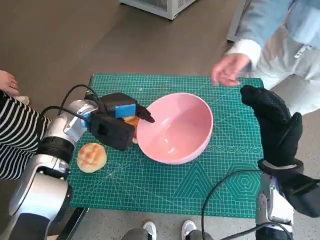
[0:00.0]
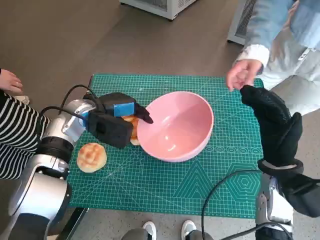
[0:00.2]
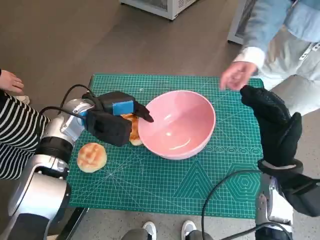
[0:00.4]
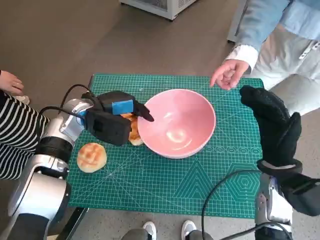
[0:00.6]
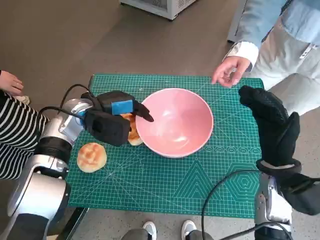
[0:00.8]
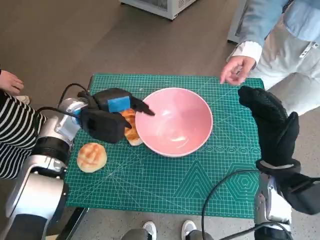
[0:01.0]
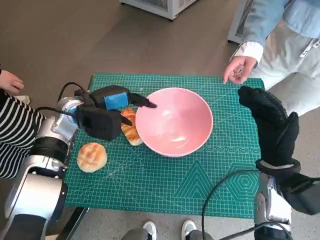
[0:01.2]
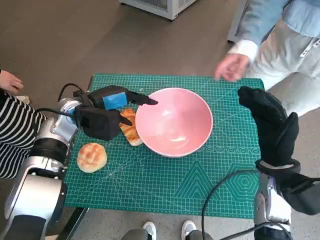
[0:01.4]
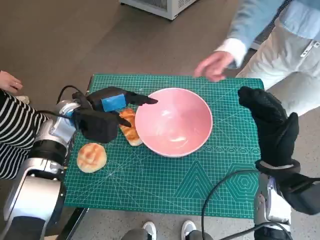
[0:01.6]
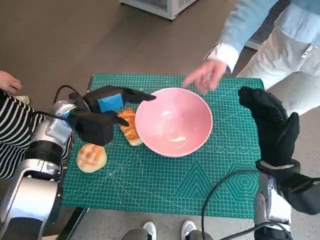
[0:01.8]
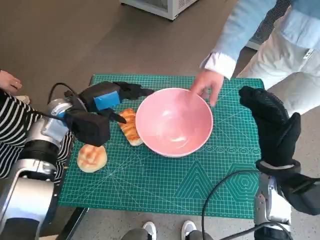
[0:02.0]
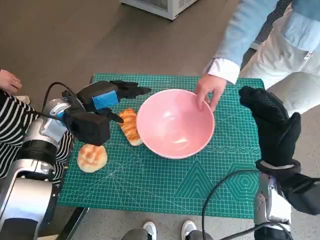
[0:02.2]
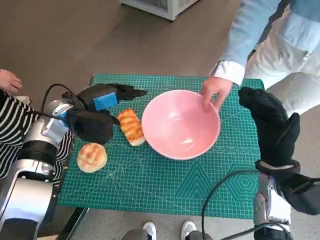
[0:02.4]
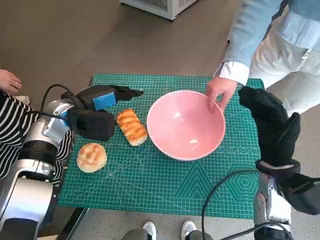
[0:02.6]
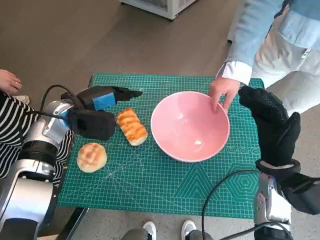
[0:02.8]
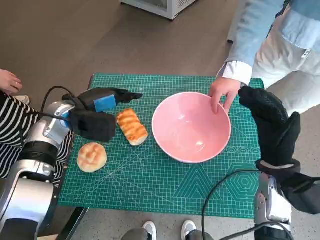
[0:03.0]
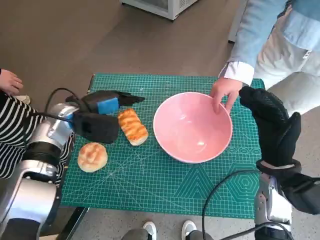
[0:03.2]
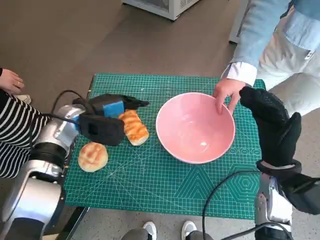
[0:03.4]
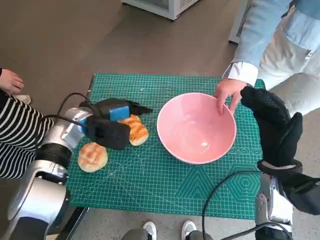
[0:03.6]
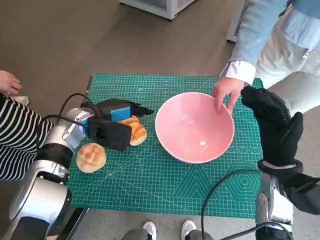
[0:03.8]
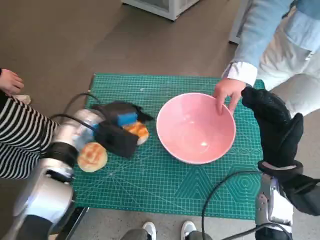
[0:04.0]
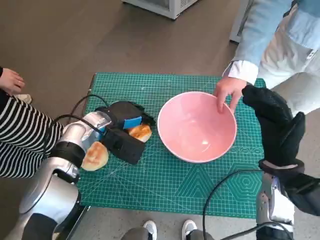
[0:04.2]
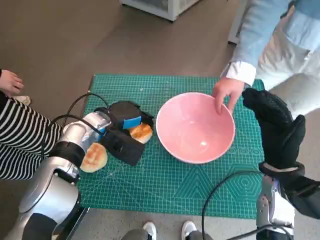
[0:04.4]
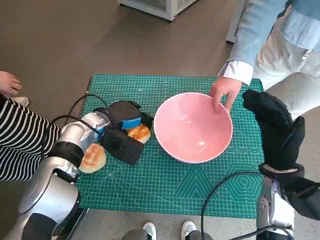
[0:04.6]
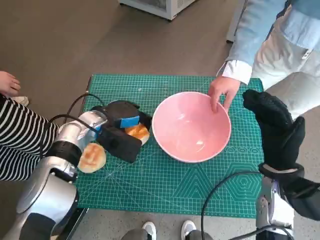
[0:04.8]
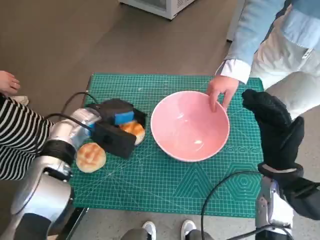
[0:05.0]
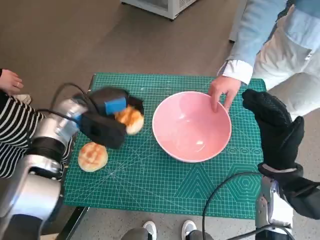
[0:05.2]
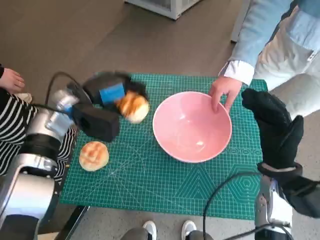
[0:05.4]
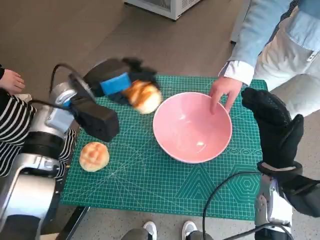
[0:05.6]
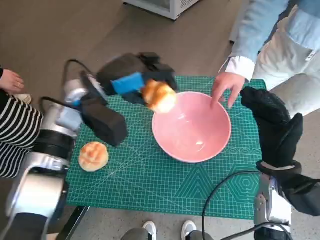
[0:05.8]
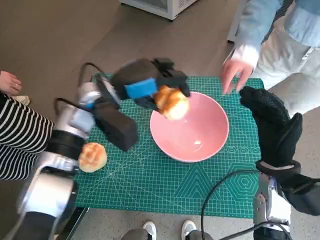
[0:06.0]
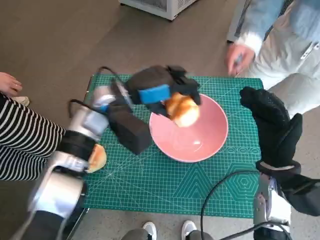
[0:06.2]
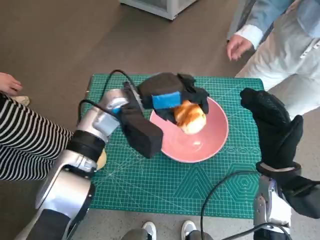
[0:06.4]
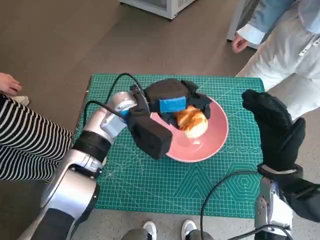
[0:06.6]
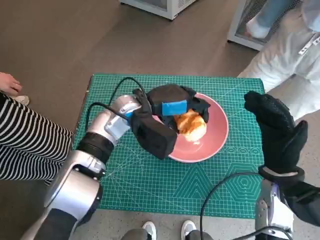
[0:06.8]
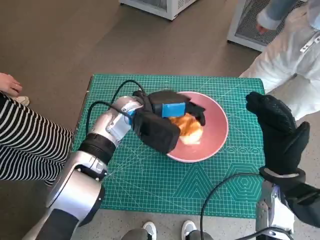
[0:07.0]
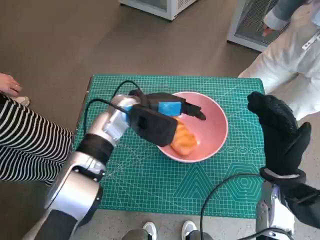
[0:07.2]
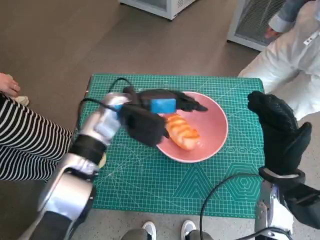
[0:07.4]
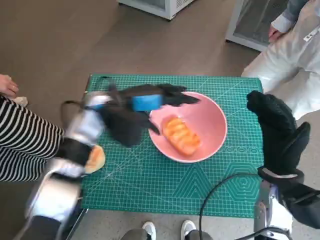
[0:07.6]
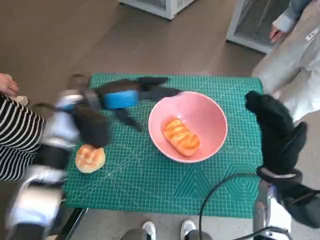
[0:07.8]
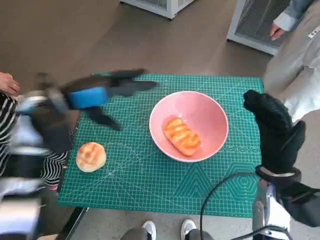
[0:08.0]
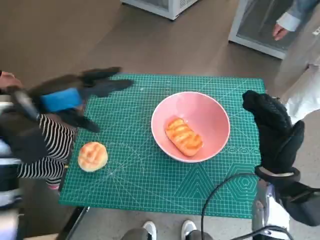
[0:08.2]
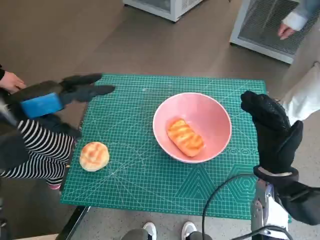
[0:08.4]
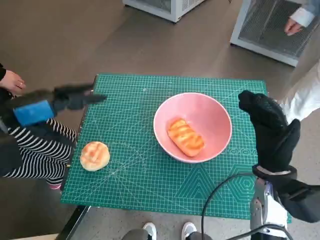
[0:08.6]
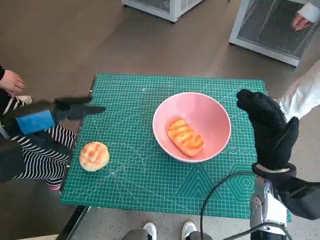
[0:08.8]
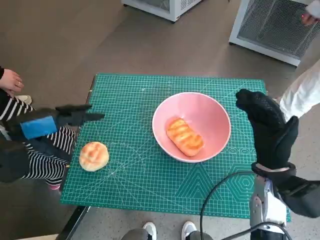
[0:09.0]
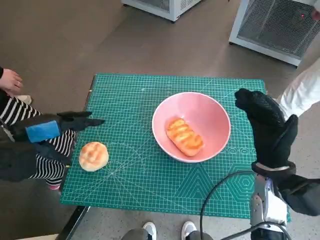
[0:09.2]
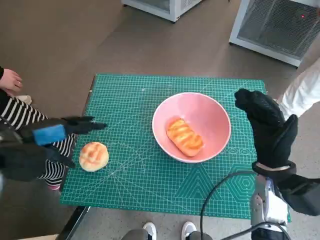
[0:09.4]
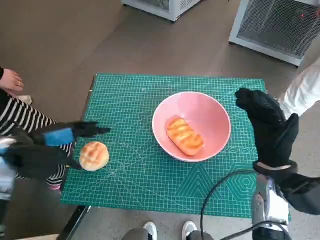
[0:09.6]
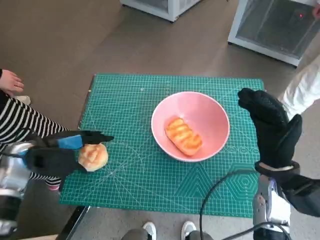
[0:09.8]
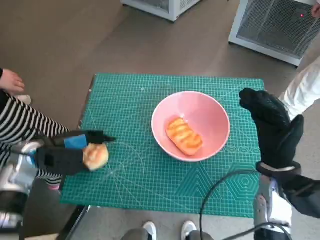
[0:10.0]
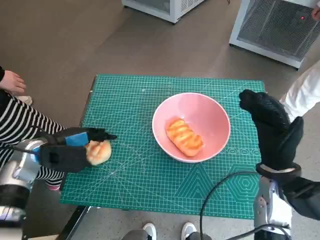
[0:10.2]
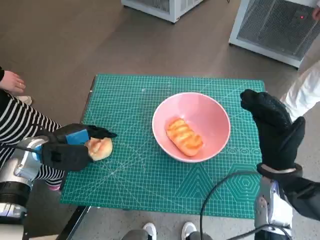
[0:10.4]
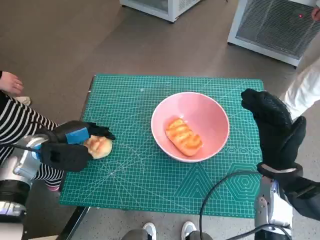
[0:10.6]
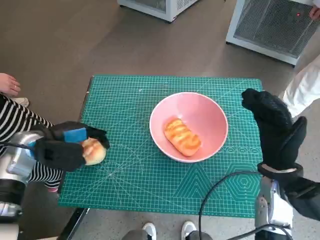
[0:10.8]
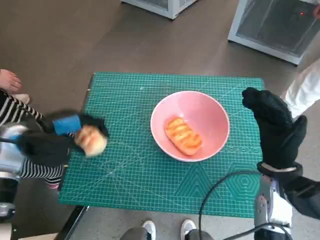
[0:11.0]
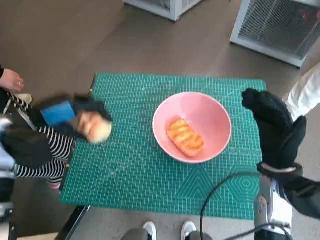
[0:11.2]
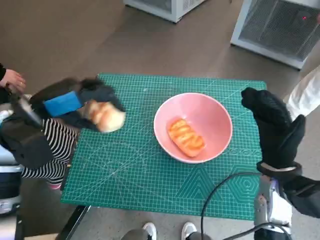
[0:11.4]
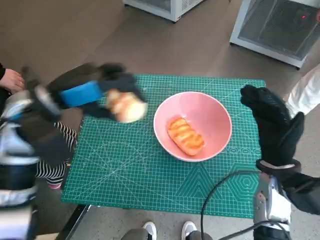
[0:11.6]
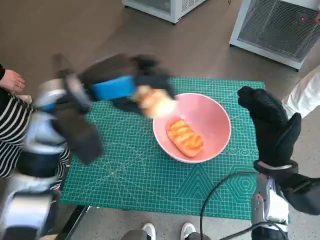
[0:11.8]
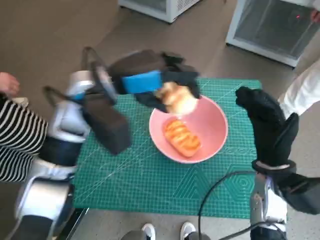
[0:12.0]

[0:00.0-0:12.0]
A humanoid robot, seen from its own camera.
Task of the whole recording: Push the bowl into the center of the table and put the bread into the bowl.
Step, 0:00.0 to 0:04.2: Grasp the long bread with left hand.
Step, 0:04.4 to 0:07.6: Place the long bread in pink bowl with left hand.
Step, 0:07.8 to 0:10.6: Grasp the round bread with left hand.
0:01.6 to 0:03.0: The hands stay close to where they were, moving slightly.
0:03.0 to 0:04.4: The left hand moves to the right, roughly 5 cm.
0:04.4 to 0:06.0: The left hand travels upward by about 10 cm.
0:07.6 to 0:09.0: The left hand shifts roughly 20 cm to the left and backward.
0:09.0 to 0:10.4: The left hand shifts approximately 10 cm downward.
0:10.4 to 0:12.0: The left hand is displaced to the right and upward by approximately 20 cm.

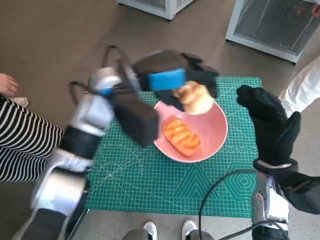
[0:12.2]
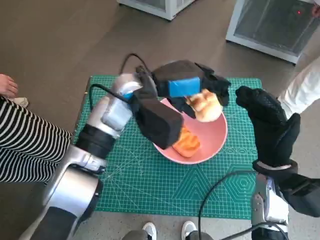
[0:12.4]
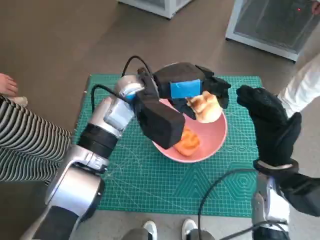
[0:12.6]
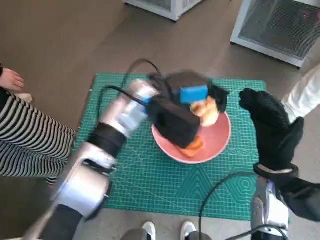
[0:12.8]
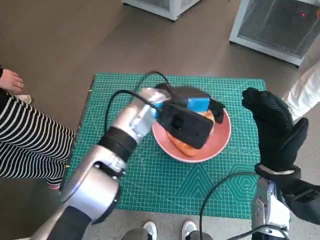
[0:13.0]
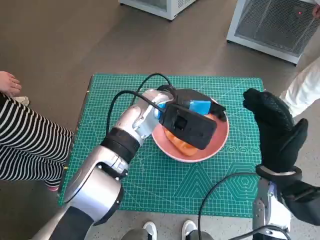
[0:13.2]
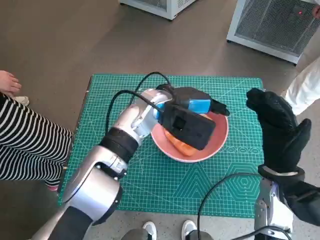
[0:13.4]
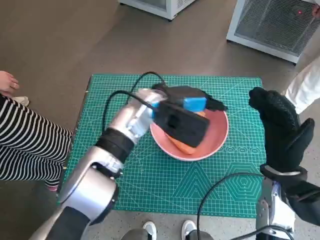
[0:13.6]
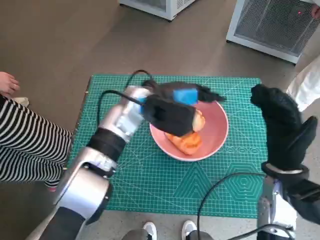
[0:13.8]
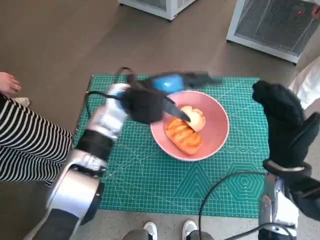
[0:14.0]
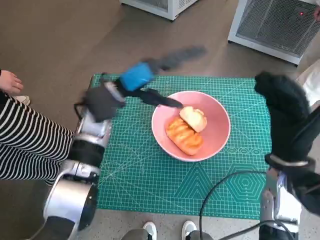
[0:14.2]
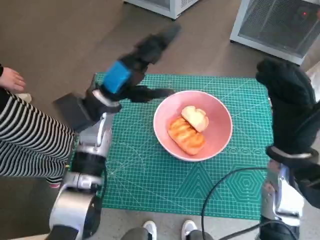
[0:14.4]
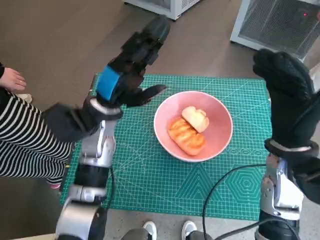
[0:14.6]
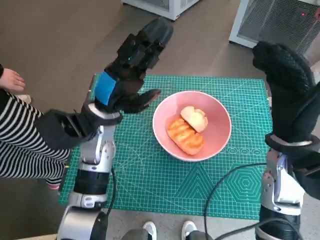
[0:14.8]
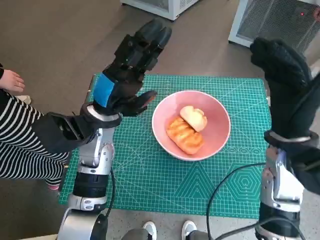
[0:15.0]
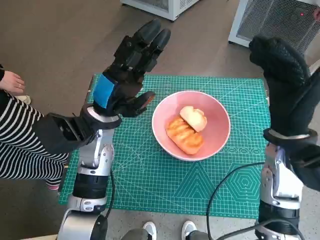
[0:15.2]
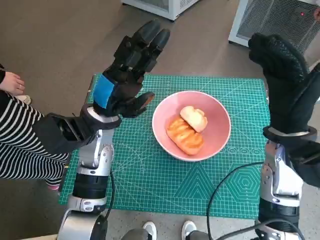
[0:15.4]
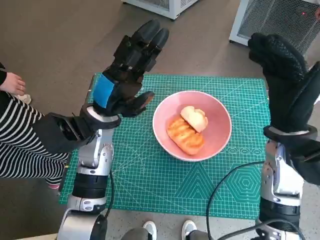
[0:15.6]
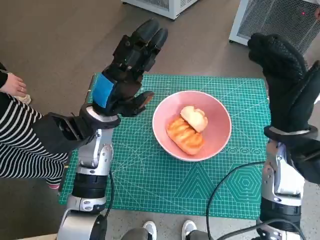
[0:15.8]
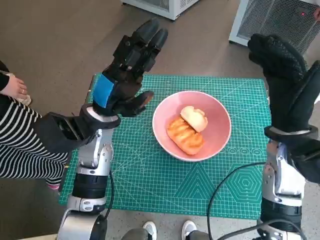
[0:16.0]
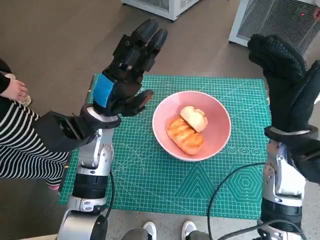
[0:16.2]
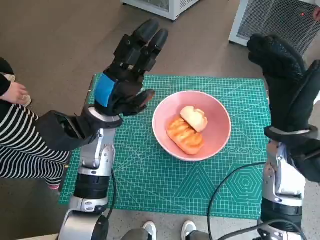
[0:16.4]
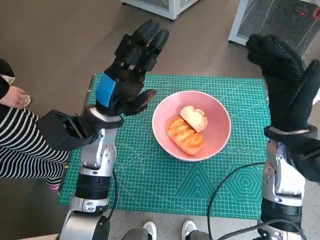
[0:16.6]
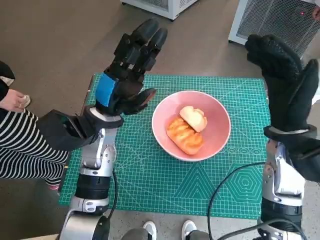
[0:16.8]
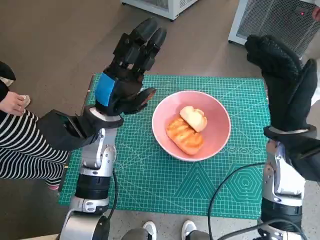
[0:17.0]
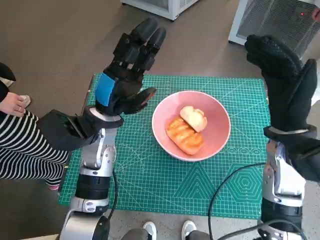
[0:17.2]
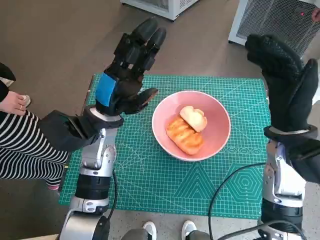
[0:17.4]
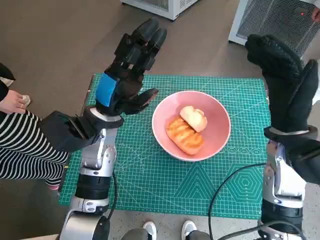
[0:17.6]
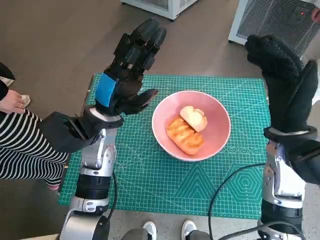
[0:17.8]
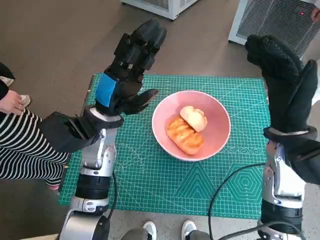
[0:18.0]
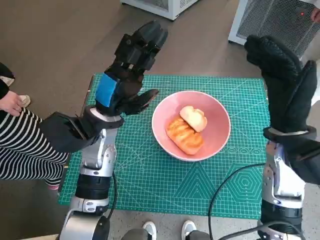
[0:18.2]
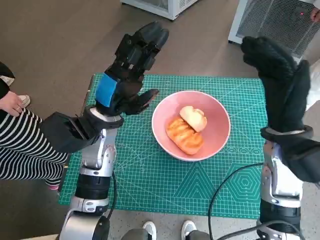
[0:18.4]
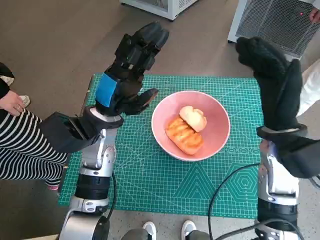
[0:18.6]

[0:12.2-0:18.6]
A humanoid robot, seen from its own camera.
Task of the whole recording: Push the bowl into the center of the table and put the bread into the bowl.
Step, 0:12.2 to 0:14.0: Place the round bread in pink bowl with left hand.
0:12.2 to 0:13.8: The left hand is displaced downward by some 5 cm.
0:13.8 to 0:15.4: The right hand goes about 5 cm upward. Meanwhile the left hand goes approximately 10 cm to the left and backward.
0:15.4 to 0:17.0: Neither hand changes place.
0:17.0 to 0:18.6: Neither hand changes place.

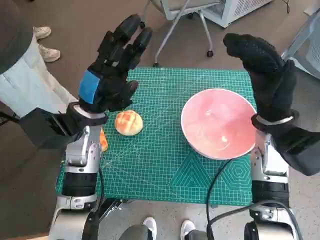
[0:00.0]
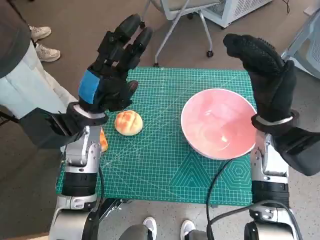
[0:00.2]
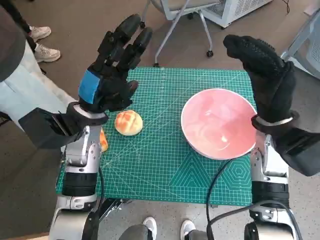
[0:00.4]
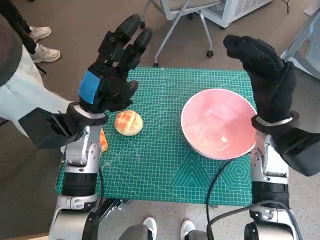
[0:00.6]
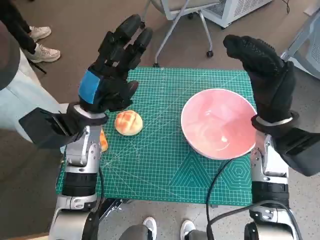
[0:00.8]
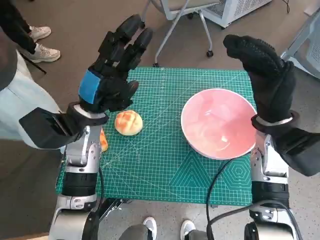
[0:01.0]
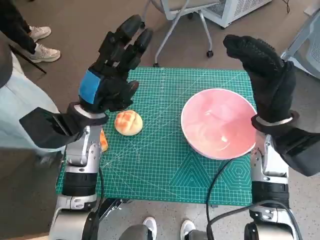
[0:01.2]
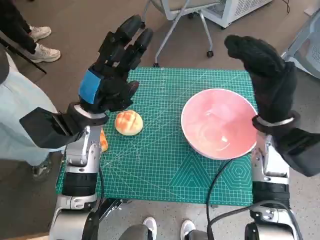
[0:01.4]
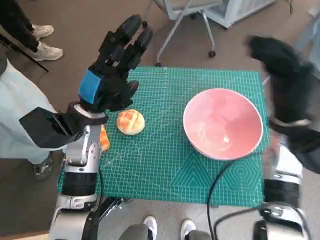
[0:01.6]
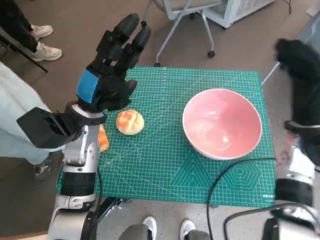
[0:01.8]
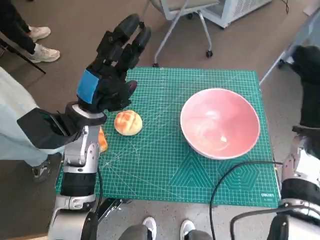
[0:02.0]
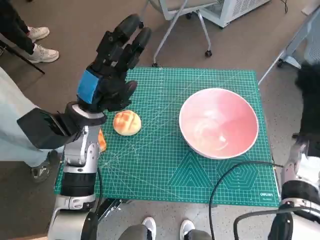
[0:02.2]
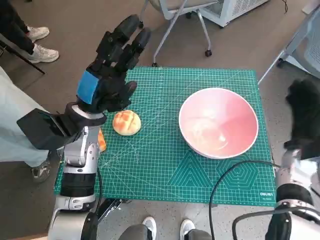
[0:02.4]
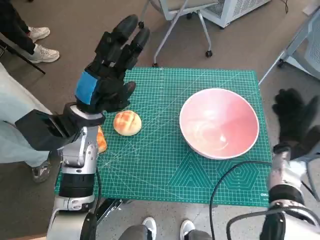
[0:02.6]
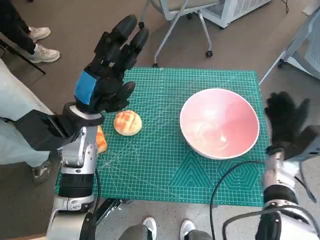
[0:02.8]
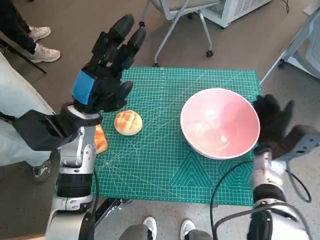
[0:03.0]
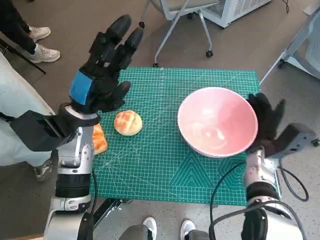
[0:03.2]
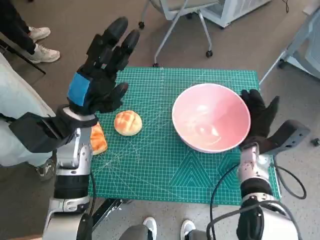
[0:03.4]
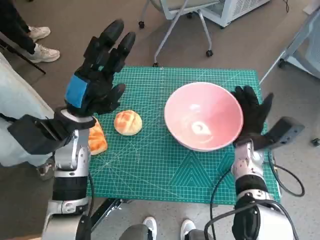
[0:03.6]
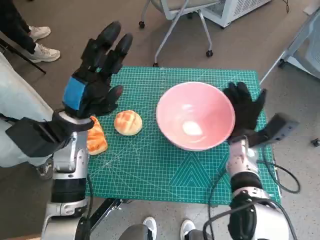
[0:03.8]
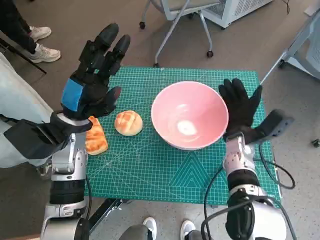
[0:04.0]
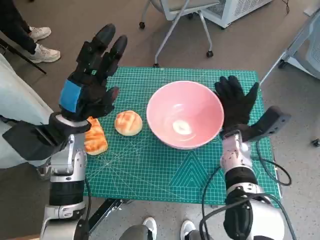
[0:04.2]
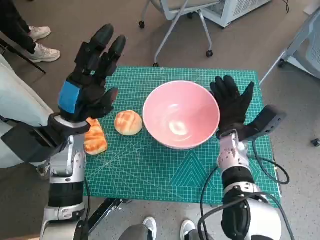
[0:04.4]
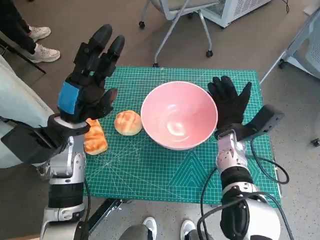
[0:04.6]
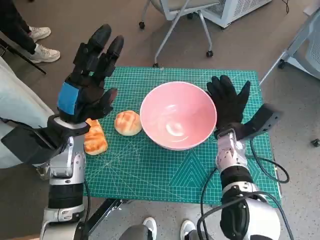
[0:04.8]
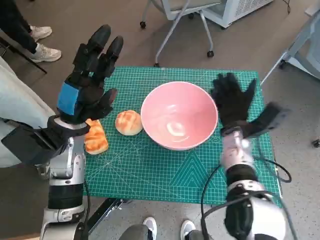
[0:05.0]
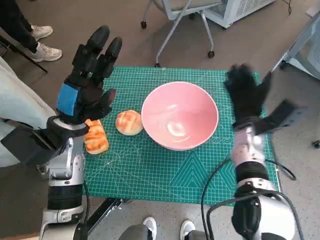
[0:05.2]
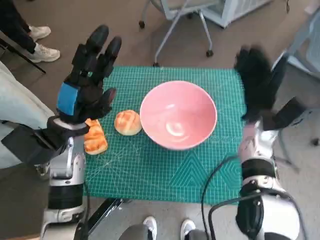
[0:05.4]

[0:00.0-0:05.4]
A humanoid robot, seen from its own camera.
Task of the whole recording: Push the bowl into the center of the table and put the bread into the bowl.
Step, 0:00.0 to 0:05.0: Move the pink bowl to the center of table with right hand.
0:01.4 to 0:02.8: The right hand travels downward and to the right by approximately 15 cm.
0:02.8 to 0:04.0: The right hand shifts roughly 10 cm to the left.
0:04.0 to 0:05.4: The right hand moves upward, roughly 5 cm.
